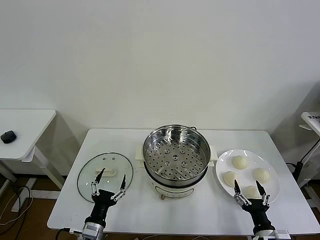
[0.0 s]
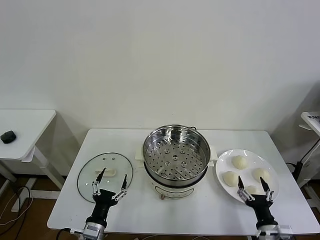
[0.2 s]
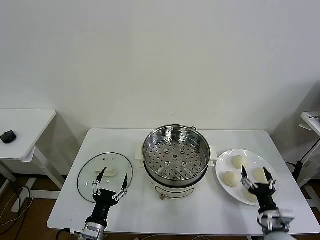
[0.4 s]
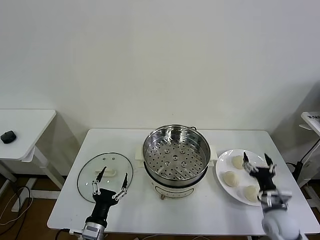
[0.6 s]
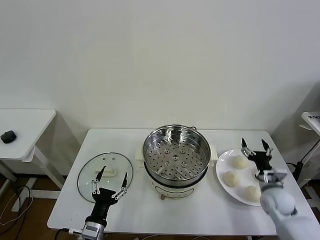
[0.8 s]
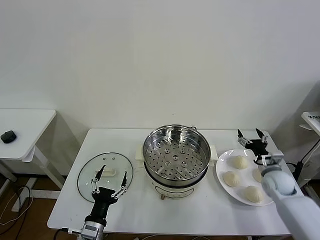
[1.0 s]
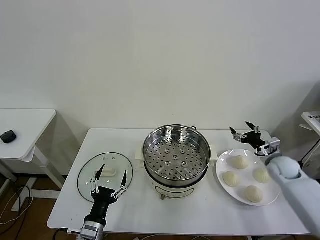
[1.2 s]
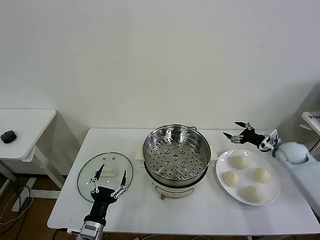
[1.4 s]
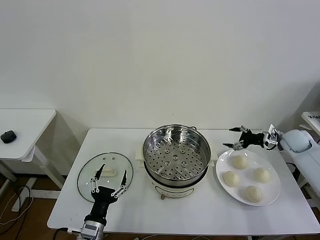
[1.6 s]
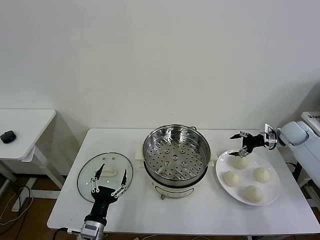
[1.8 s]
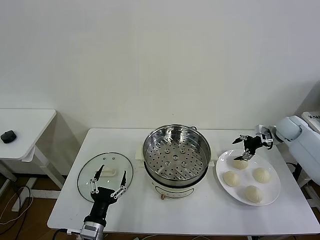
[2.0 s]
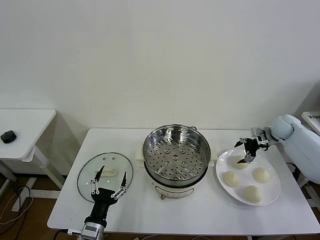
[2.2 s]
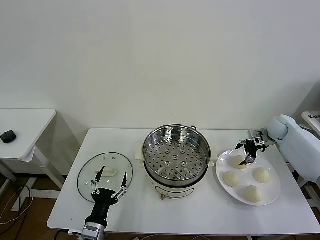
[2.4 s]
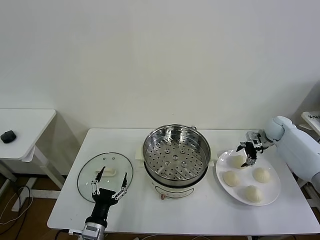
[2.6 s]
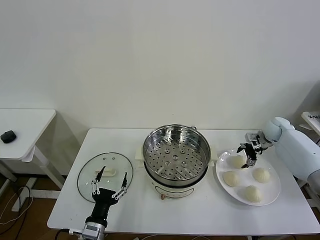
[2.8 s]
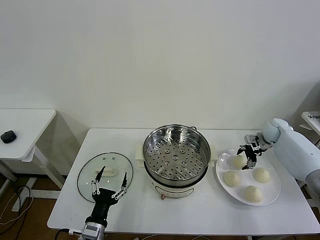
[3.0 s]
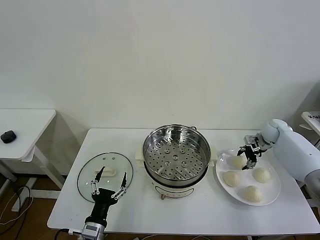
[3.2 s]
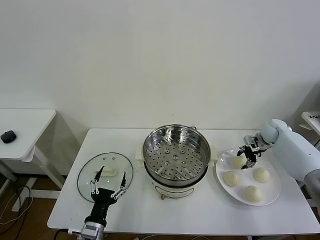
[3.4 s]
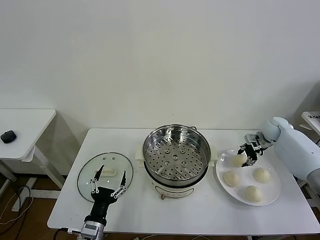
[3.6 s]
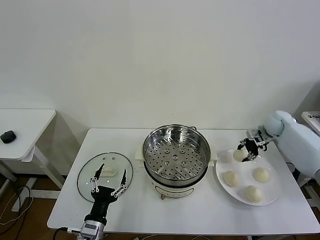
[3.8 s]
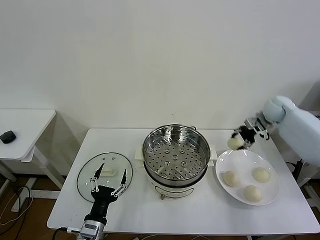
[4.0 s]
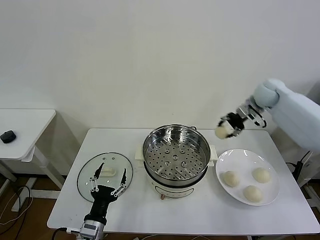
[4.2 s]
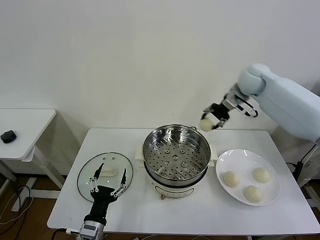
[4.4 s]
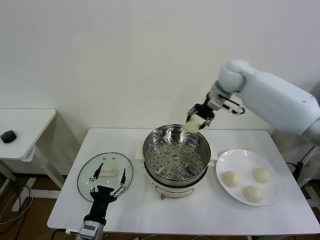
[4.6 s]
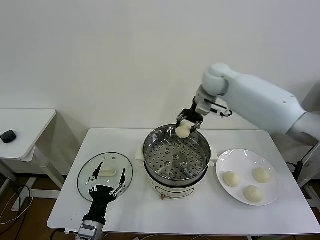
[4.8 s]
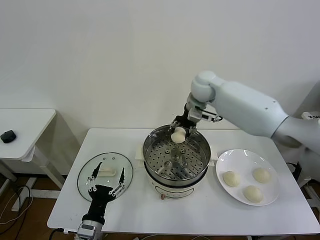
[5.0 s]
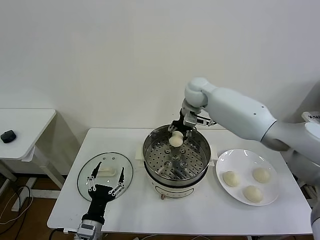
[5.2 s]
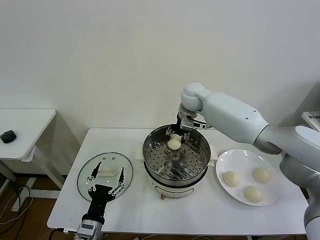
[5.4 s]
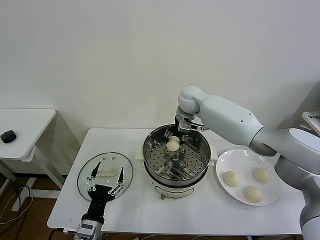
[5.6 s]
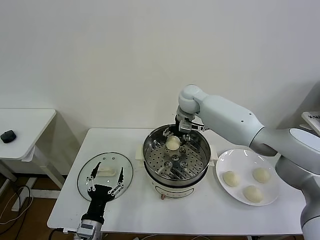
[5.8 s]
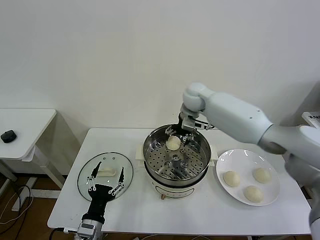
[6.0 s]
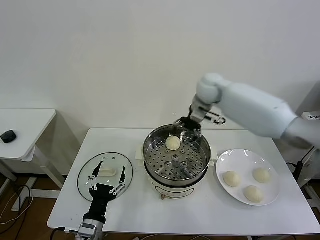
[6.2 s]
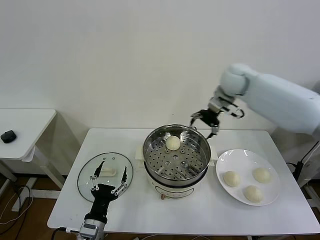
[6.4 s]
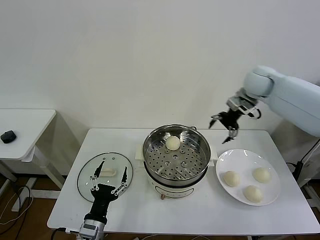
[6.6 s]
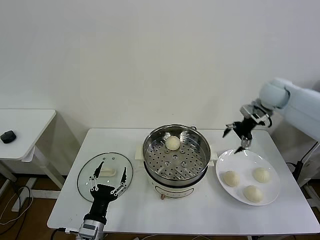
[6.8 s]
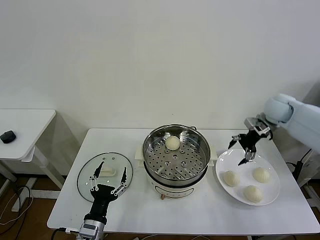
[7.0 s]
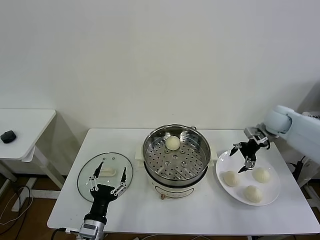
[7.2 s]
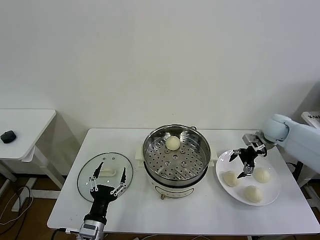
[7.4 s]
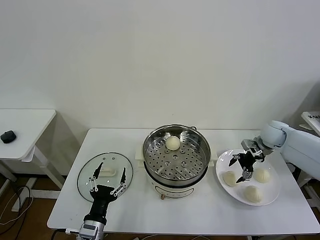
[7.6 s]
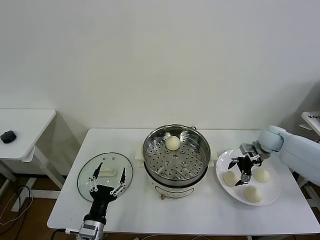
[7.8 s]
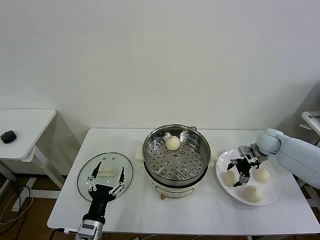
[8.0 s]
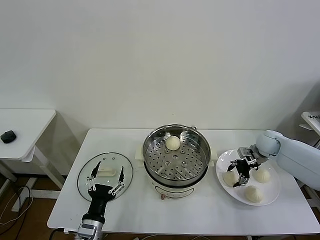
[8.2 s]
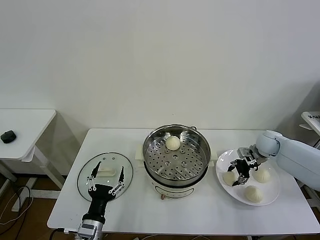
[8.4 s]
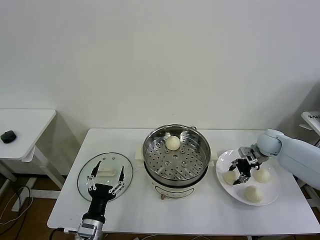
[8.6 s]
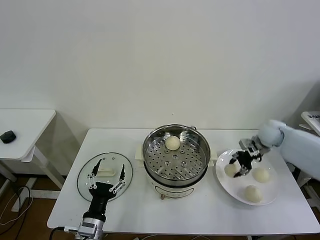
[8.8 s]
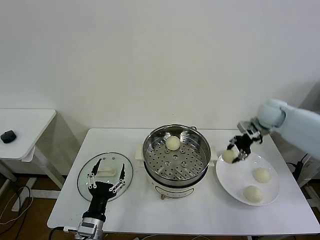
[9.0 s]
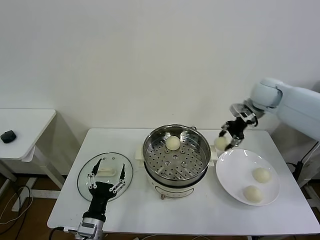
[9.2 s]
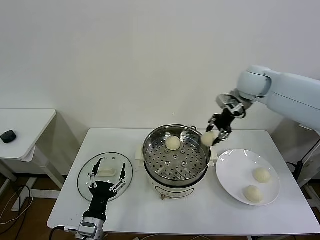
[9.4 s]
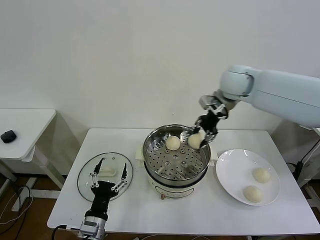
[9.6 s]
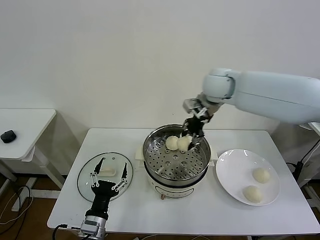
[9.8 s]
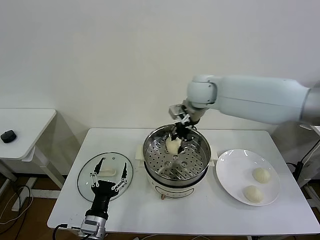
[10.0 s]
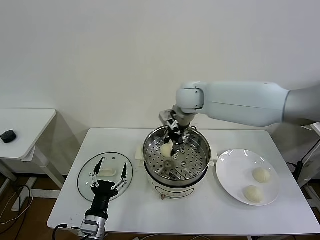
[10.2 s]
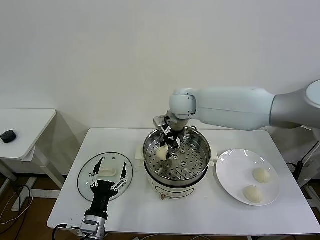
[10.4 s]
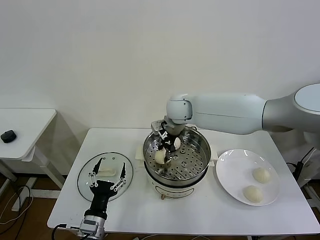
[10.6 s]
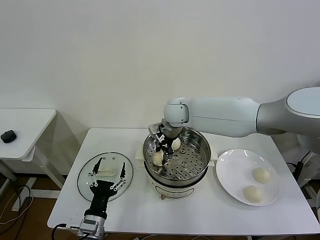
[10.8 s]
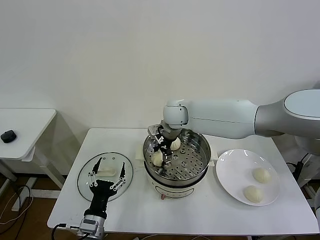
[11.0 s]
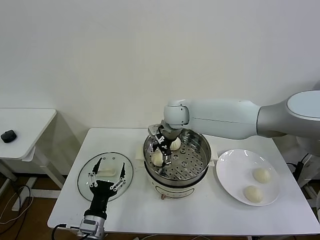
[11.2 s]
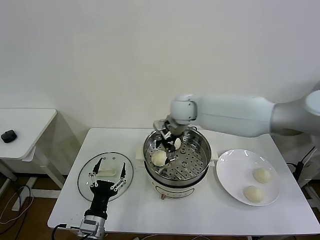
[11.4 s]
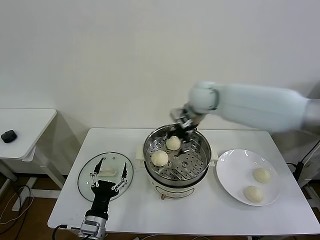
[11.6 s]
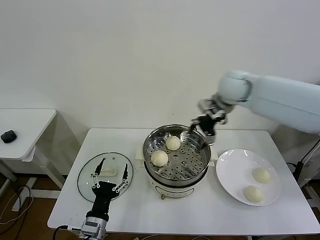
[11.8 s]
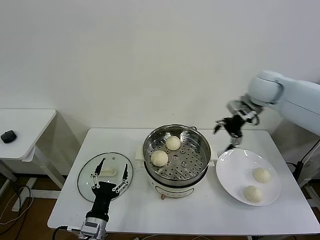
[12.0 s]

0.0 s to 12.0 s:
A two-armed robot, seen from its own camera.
Task of the whole recording: take steamed baozi put them in steamer then cover it.
Step, 0.0 to 3.4 s: Grasp the baozi in the plate with right gripper.
Step, 3.8 to 6.2 s: Place the baozi on the steamer with right gripper.
Step, 6.4 to 8.4 s: Grasp the baozi in the plate with right gripper.
Step, 8.8 to 11.6 s: Place the baozi on the steamer with right gripper.
1.6 to 3.0 s: The right gripper is displaced forward by some 5 cm.
3.0 to 4.4 s: The right gripper heads upward and to the left, covering about 30 cm, and closes its fingers.
4.4 to 6.0 s: The right gripper shifts about 15 cm to the left and downward, and opens its fingers.
6.0 to 7.6 s: The right gripper shifts some 30 cm to the right and downward.
7.6 to 9.0 s: The right gripper goes some 15 cm upward and to the left, and closes.
9.0 to 10.4 s: The right gripper travels to the left by some 30 cm.
10.4 to 12.0 s: The right gripper shifts about 25 cm to the right, and opens its fingers.

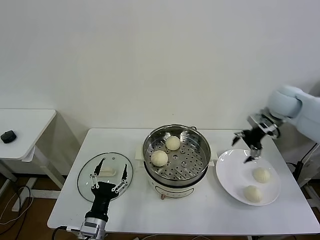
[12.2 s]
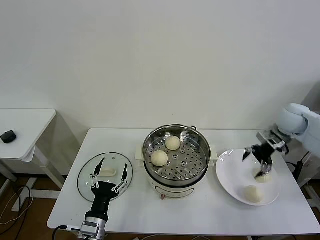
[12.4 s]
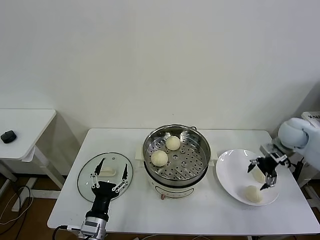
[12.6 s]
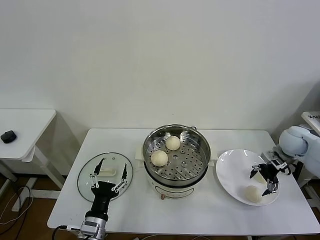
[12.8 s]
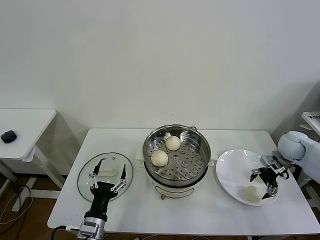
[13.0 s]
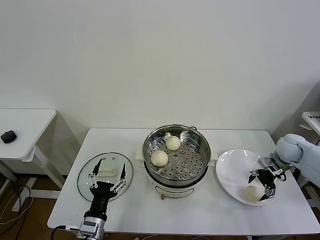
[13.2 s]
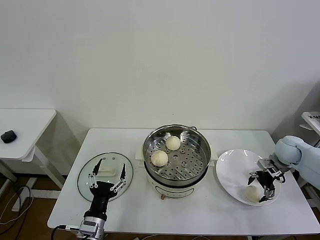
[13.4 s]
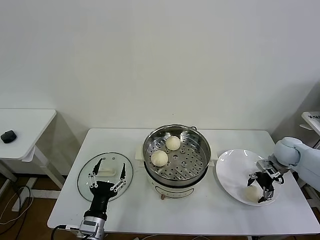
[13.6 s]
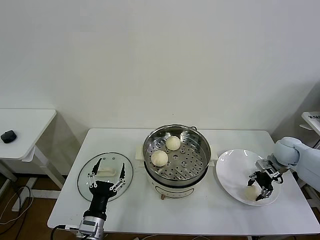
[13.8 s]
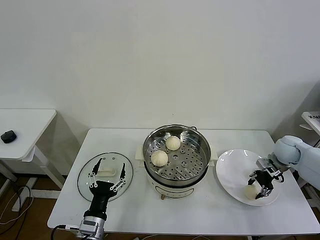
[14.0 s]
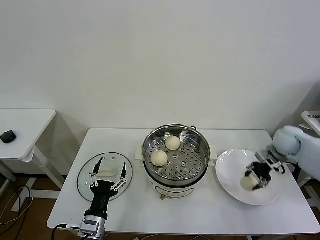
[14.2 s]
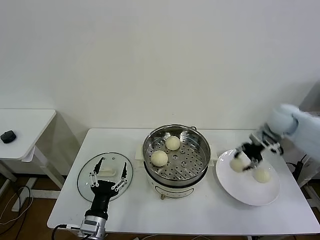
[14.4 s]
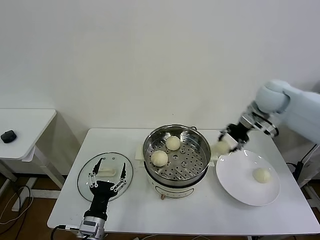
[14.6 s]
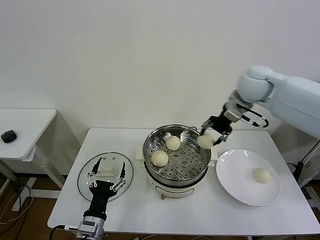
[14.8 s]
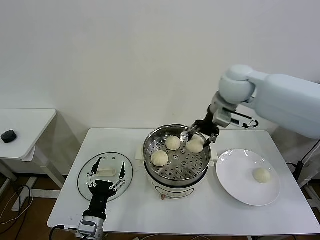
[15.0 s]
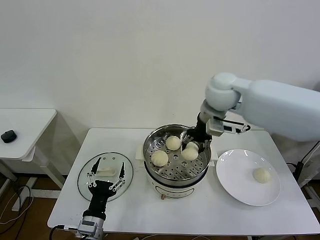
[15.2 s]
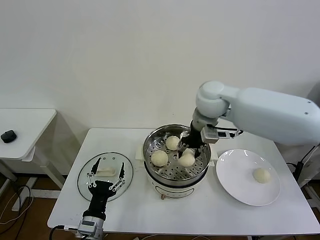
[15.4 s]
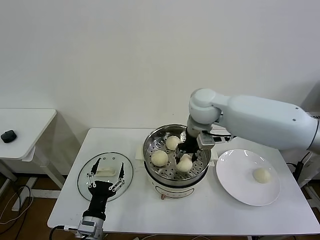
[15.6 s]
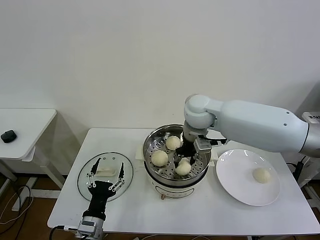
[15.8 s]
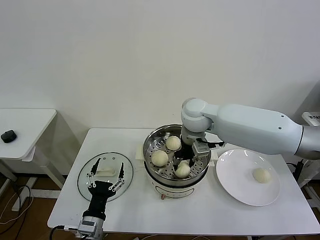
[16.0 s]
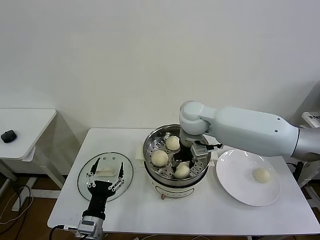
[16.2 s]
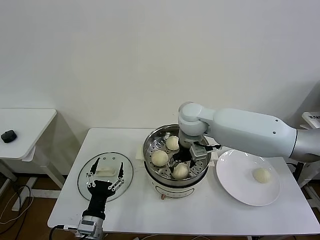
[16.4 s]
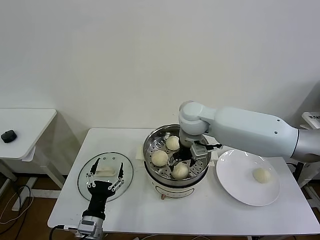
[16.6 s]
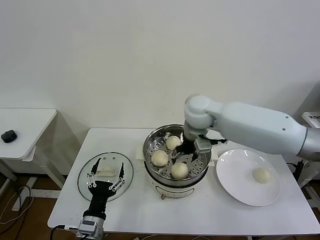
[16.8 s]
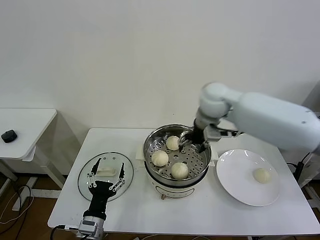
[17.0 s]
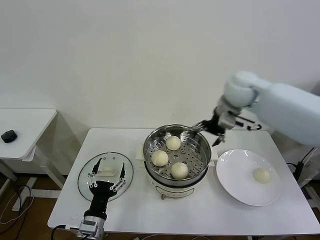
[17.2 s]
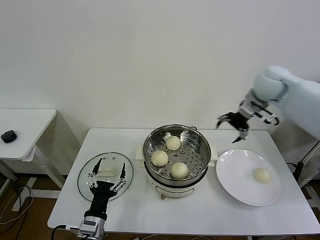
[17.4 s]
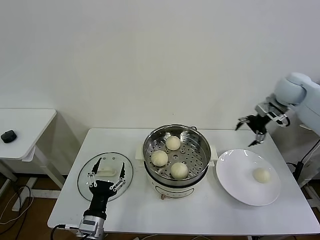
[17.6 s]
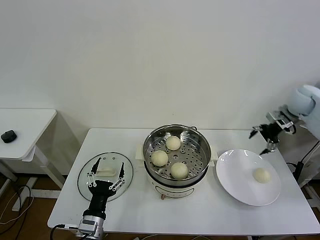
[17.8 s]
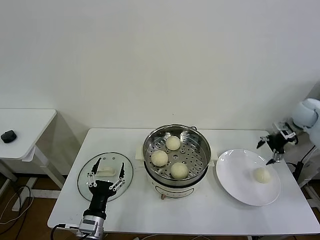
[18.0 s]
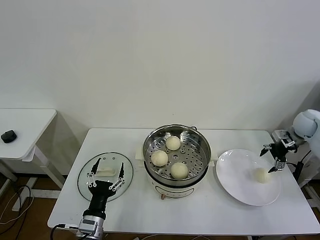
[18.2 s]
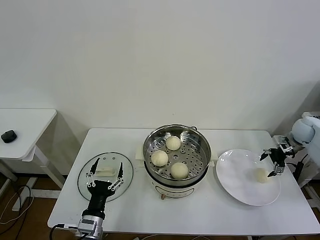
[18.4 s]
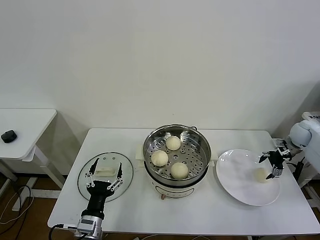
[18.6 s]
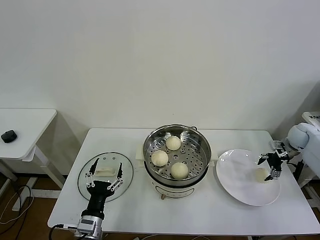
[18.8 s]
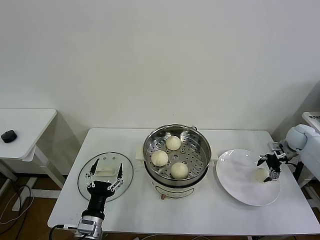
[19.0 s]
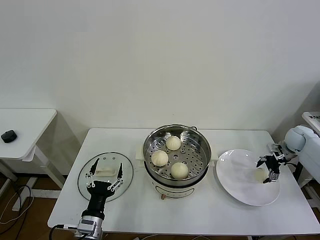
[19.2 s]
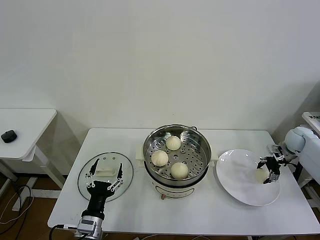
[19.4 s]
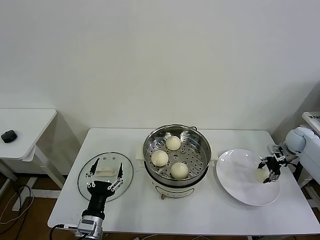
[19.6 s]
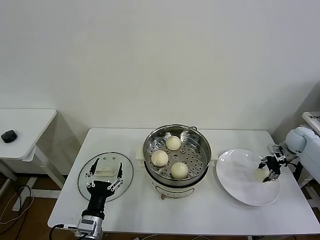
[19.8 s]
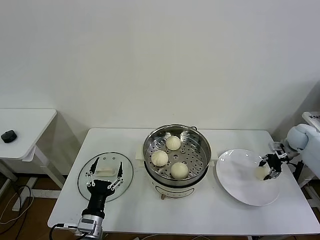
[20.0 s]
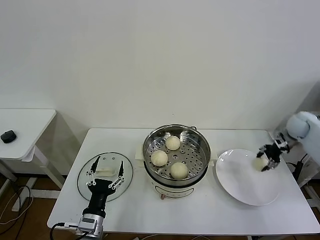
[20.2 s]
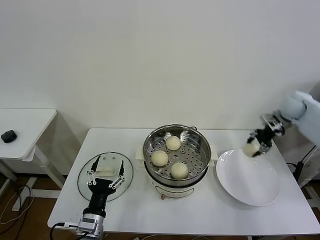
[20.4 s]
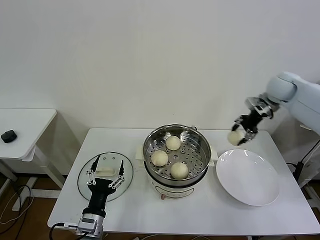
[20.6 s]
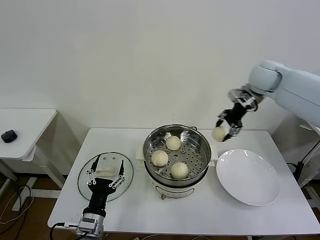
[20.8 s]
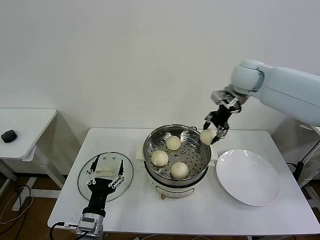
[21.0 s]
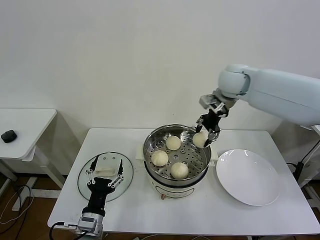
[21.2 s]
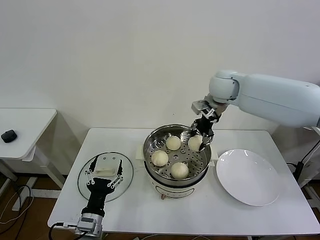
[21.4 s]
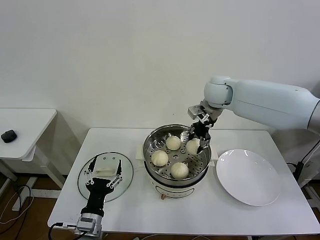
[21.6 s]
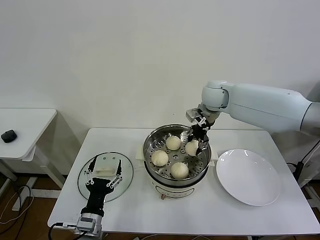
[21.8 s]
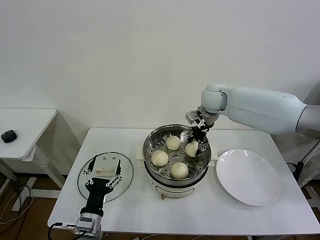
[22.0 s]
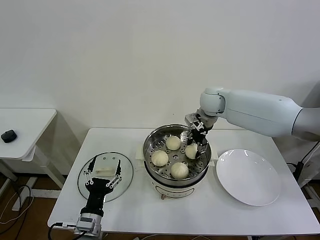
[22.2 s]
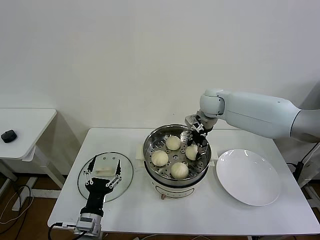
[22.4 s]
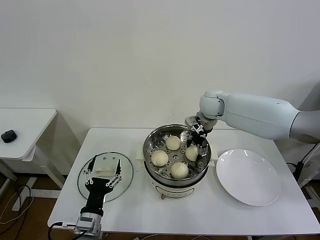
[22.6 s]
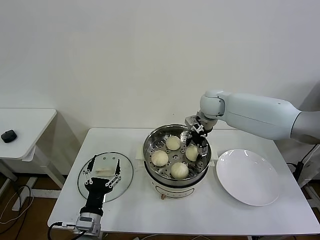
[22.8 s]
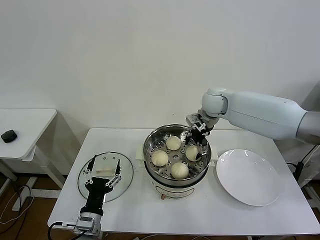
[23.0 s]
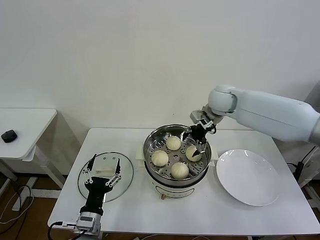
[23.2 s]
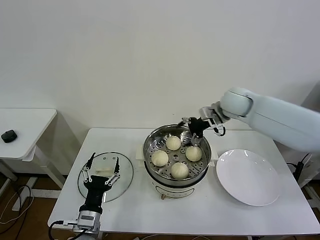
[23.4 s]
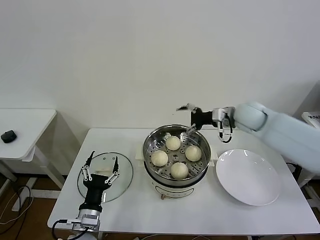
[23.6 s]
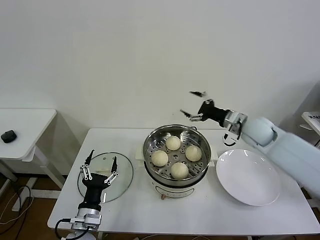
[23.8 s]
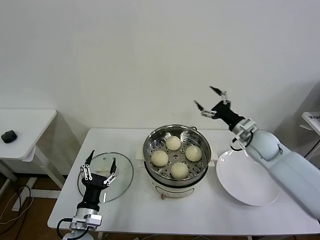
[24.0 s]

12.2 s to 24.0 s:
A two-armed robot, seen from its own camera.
Task of the whole recording: take steamed baozi put them in steamer then cover it.
Step, 12.2 to 14.0 s: Grasp the baozi in the plate with right gripper.
Step, 14.2 to 16.6 s: Place the baozi on the steamer with right gripper.
Step, 16.8 to 19.8 s: Grasp the baozi in the plate with right gripper.
Step, 20.0 to 23.4 s: Place the baozi on the steamer with right gripper.
12.2 to 13.6 s: The right gripper shifts roughly 15 cm downward.
13.6 to 15.2 s: The right gripper shifts about 35 cm to the left and upward, and closes.
15.2 to 16.6 s: The right gripper goes roughly 10 cm downward and to the left, and opens.
16.6 to 18.2 s: The right gripper moves to the right, some 40 cm.
18.2 to 19.6 s: The right gripper heads downward, covering some 5 cm, and closes up.
19.6 to 21.0 s: The right gripper travels to the left and upward by approximately 40 cm.
21.0 to 22.6 s: The right gripper is displaced downward and to the left by some 15 cm, and opens its fingers.
22.6 to 24.0 s: The right gripper shifts roughly 20 cm to the right, backward and downward.
